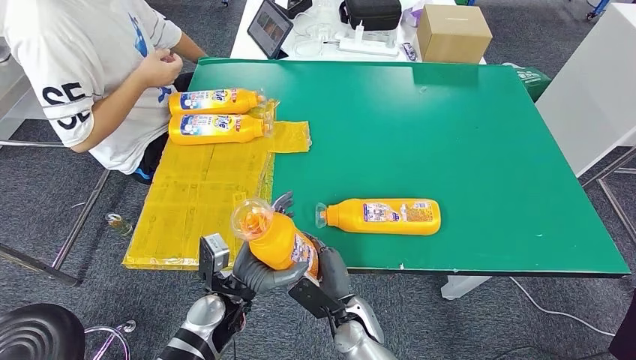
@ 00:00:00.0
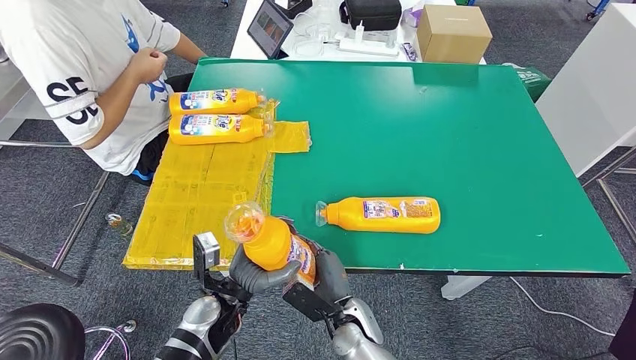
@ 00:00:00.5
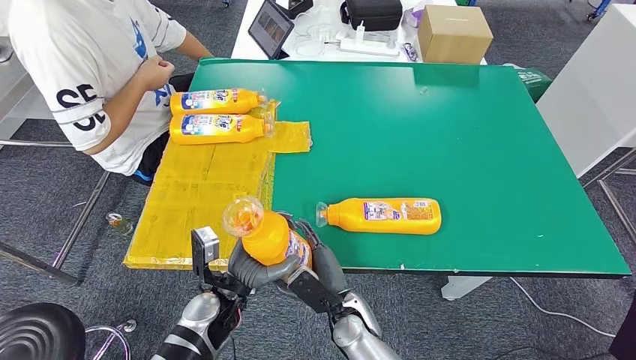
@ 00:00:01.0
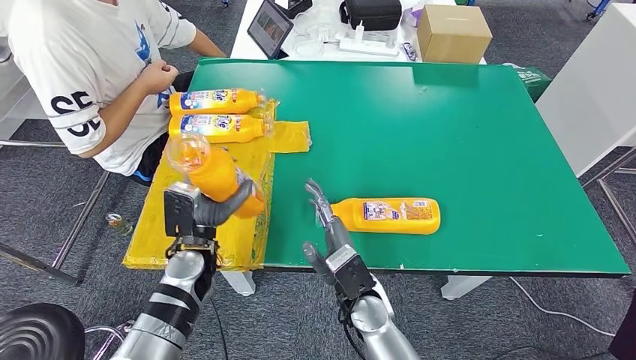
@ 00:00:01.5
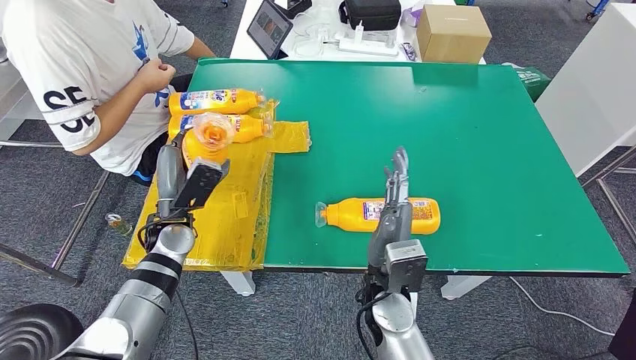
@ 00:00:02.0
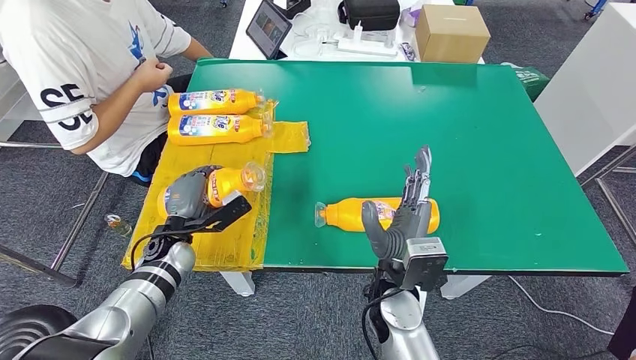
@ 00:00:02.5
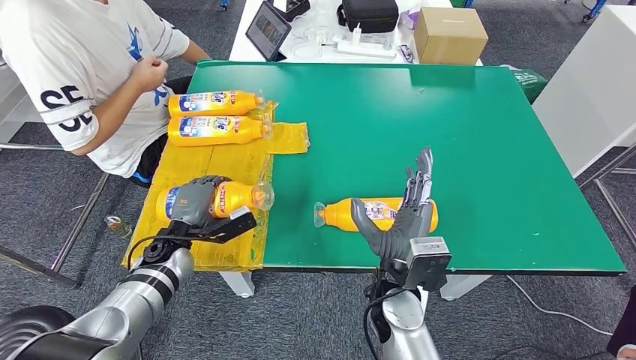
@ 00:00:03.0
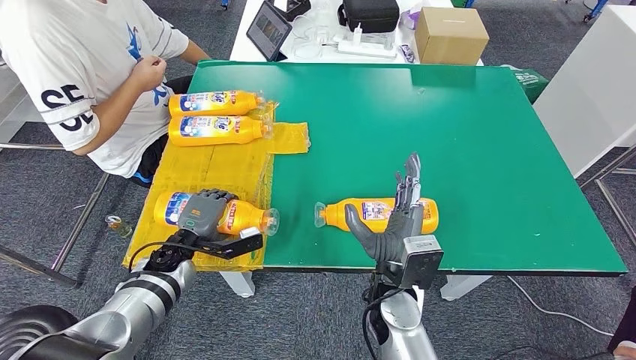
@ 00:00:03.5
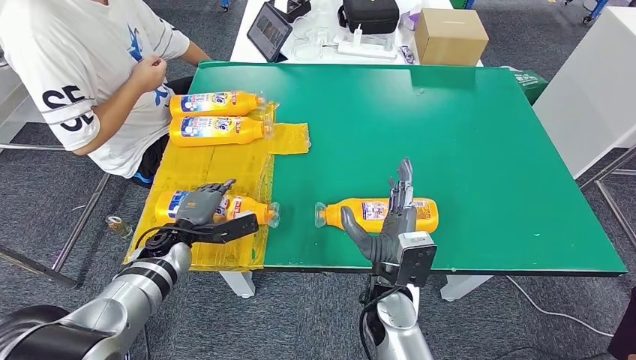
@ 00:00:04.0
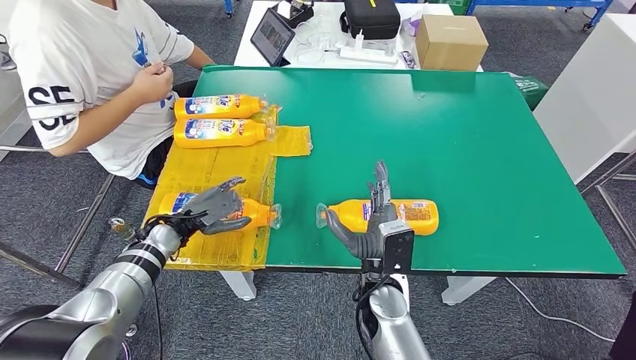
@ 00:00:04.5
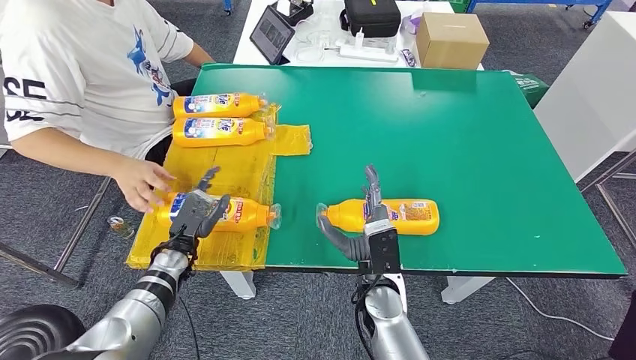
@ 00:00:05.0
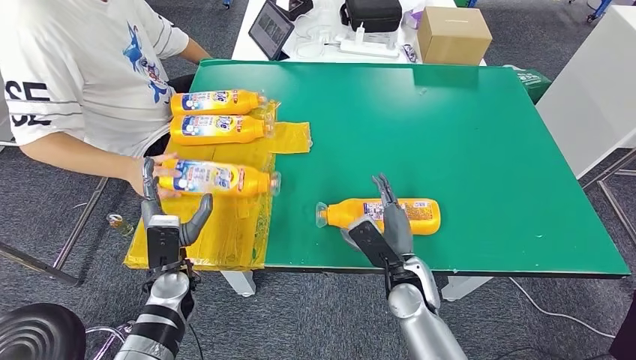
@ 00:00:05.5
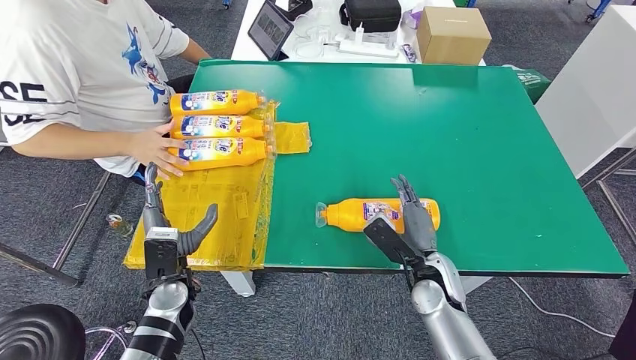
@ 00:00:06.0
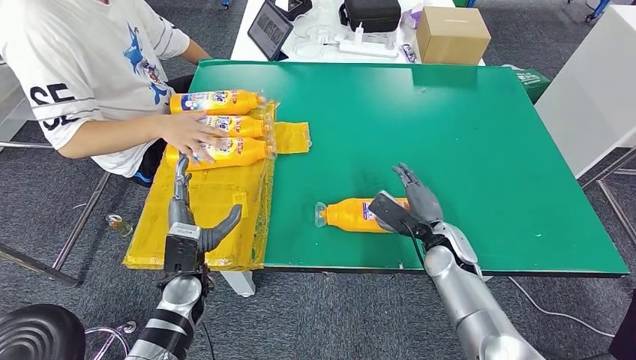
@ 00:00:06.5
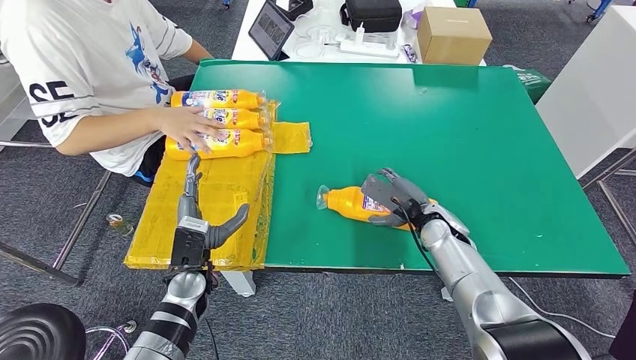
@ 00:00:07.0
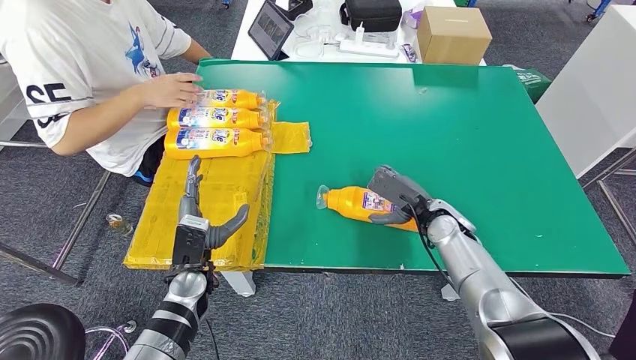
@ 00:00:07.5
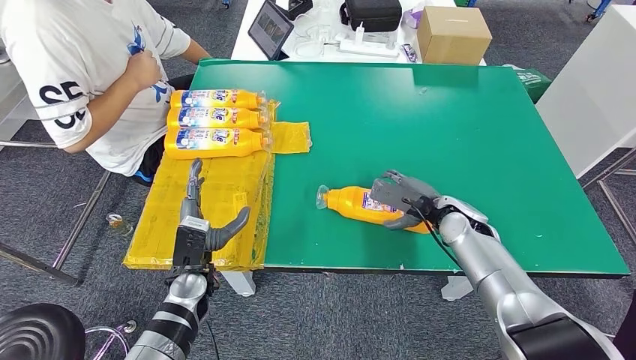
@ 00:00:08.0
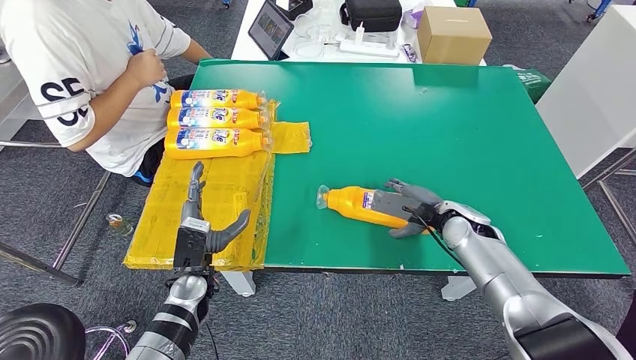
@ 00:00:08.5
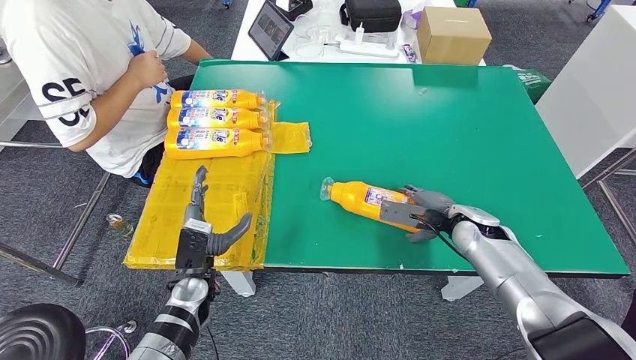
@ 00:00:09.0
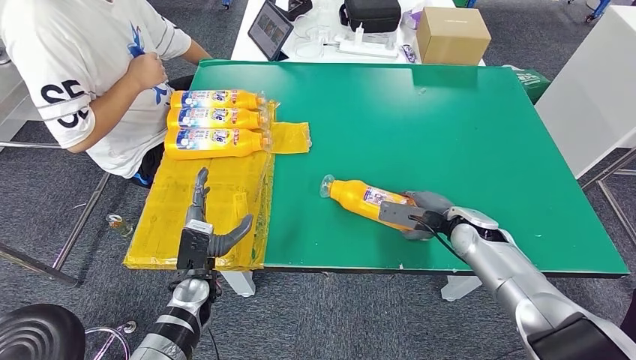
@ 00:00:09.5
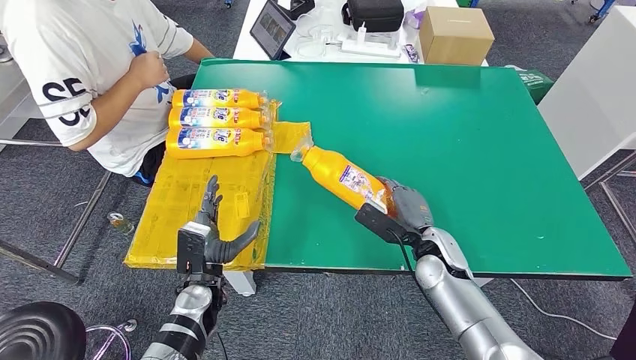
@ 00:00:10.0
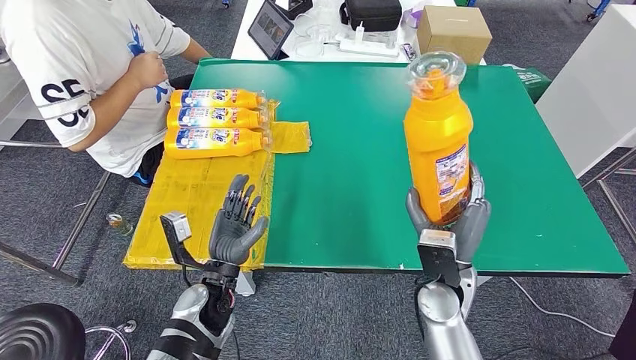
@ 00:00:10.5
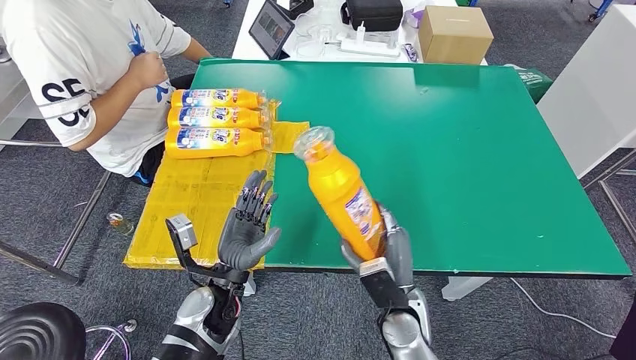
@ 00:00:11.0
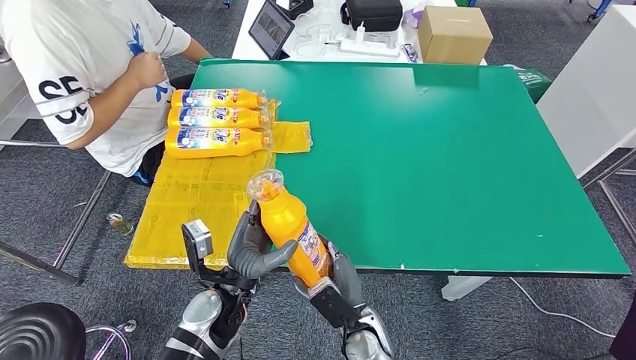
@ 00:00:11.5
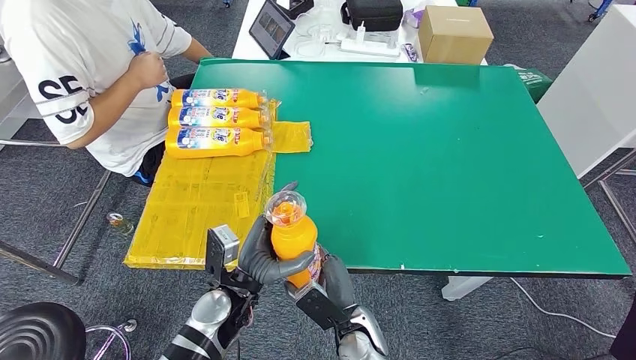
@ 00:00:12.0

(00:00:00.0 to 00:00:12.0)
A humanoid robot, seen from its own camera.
Step, 00:00:01.5 - 00:00:03.5: Flip the fast-moving consumer goods bottle to the front side.
00:00:00.0 - 00:00:02.0: The right hand is displaced upward by approximately 15 cm. Meanwhile the left hand heads forward, to the left and upward, covering some 15 cm.
00:00:02.0 - 00:00:04.0: The left hand travels downward by some 5 cm.
00:00:08.0 - 00:00:10.0: The right hand heads backward, covering some 5 cm.
00:00:10.0 - 00:00:12.0: The right hand heads to the left, backward and downward, covering about 20 cm. The left hand heads to the right, covering approximately 5 cm.

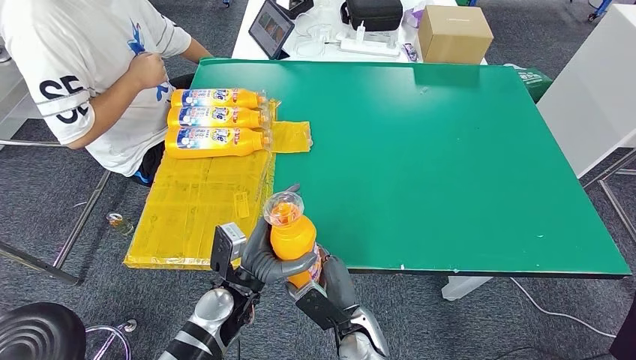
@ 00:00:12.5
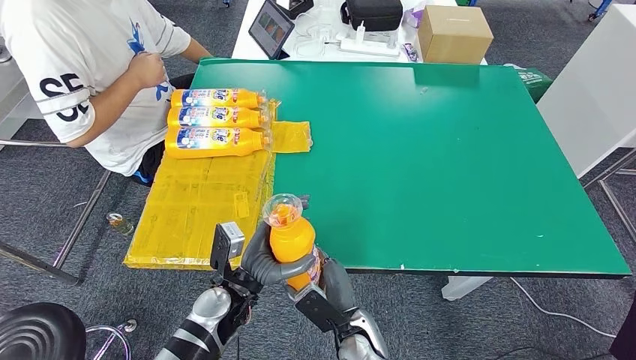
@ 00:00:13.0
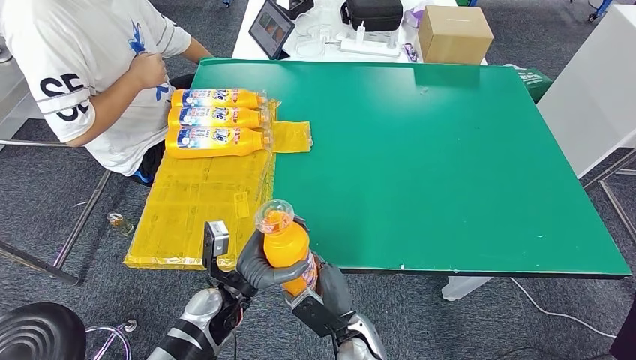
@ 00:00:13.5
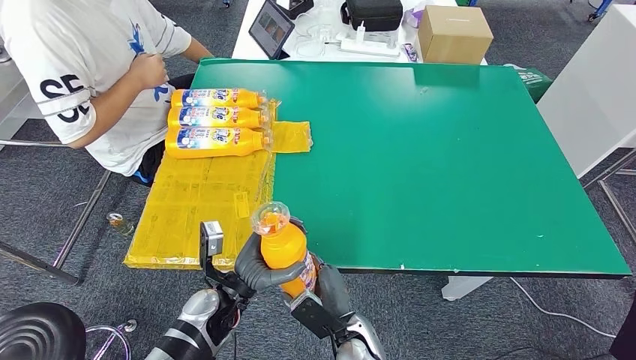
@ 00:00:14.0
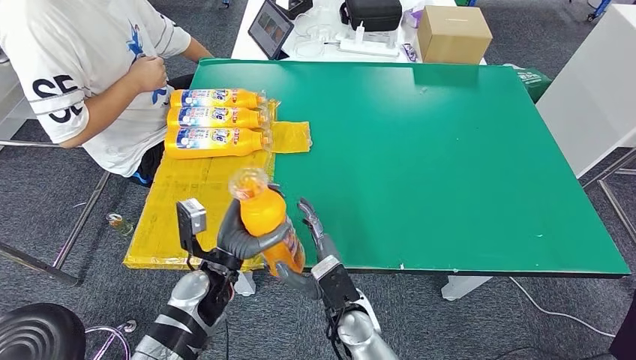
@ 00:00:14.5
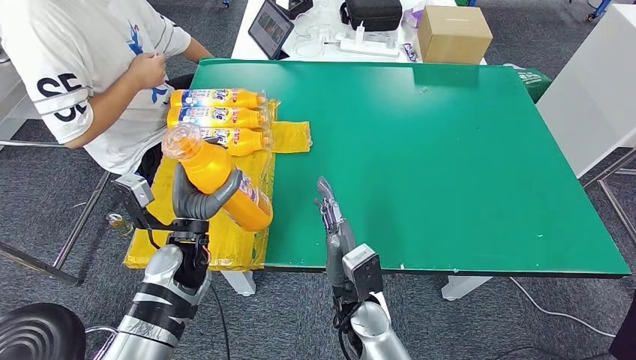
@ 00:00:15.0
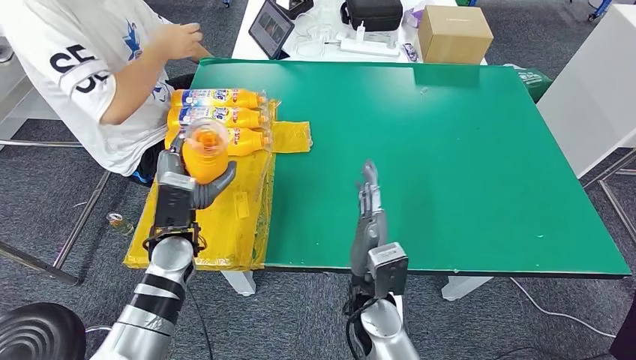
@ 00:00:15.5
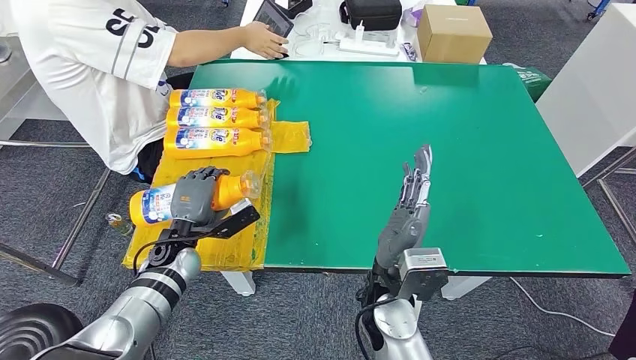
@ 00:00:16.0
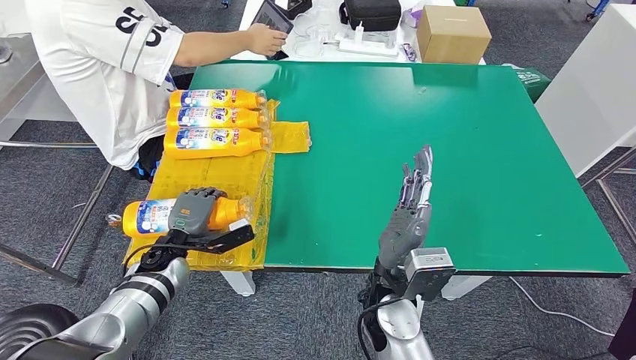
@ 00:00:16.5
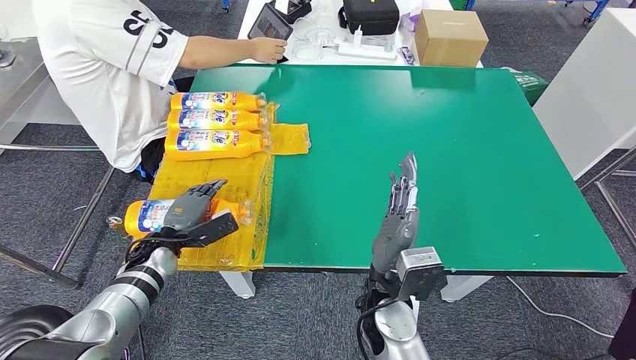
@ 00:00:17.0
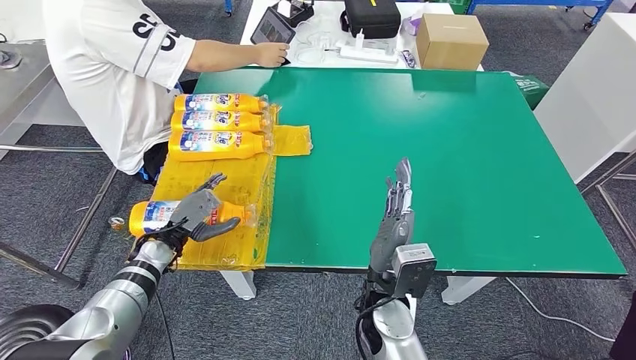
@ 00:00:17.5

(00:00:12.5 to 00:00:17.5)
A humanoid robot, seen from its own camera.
Step, 00:00:13.0 - 00:00:17.5: Flip the fast-moving consumer goods bottle to the front side.
00:00:12.5 - 00:00:15.0: The left hand moves to the left, forward and upward, about 10 cm. Meanwhile the right hand goes roughly 10 cm upward.
